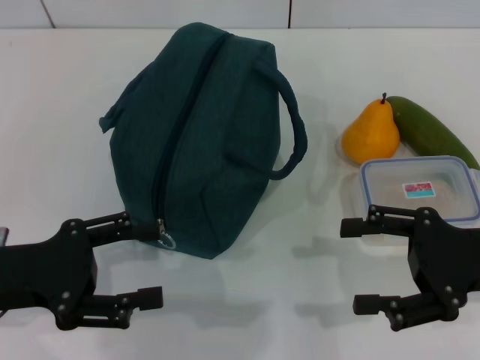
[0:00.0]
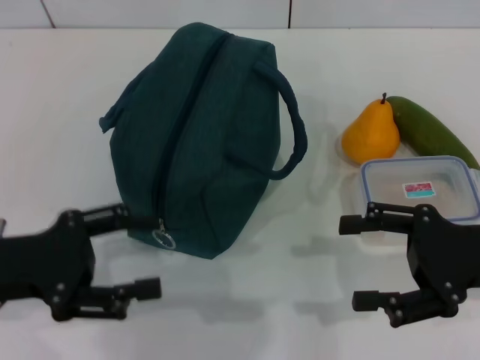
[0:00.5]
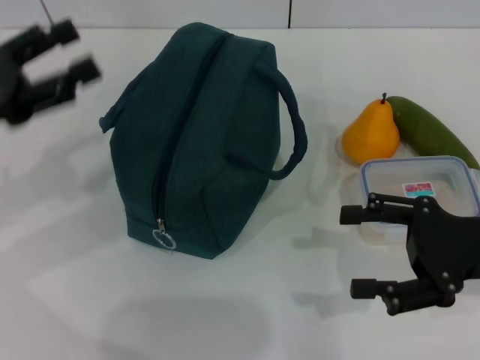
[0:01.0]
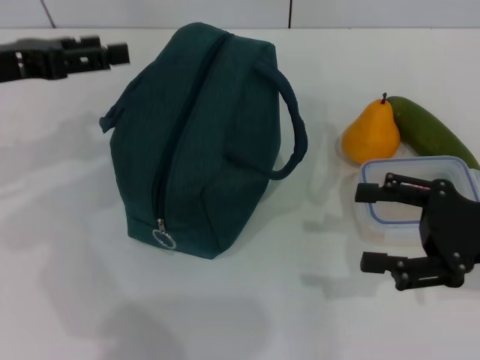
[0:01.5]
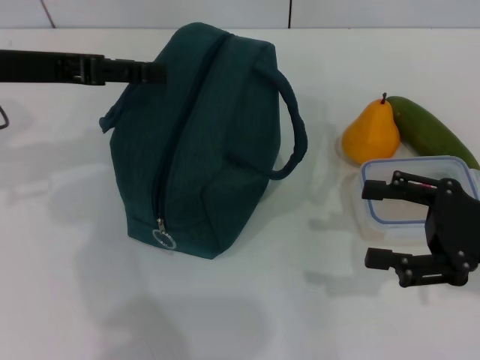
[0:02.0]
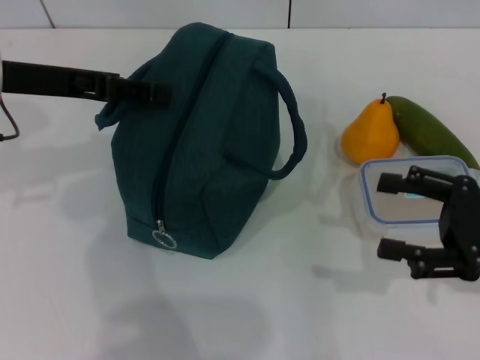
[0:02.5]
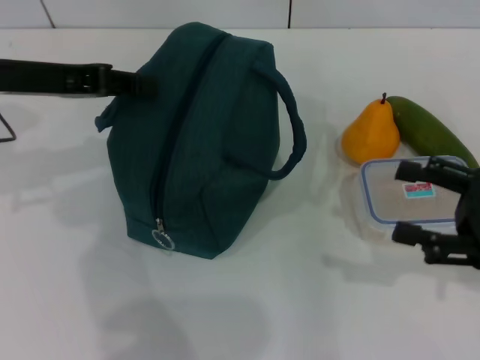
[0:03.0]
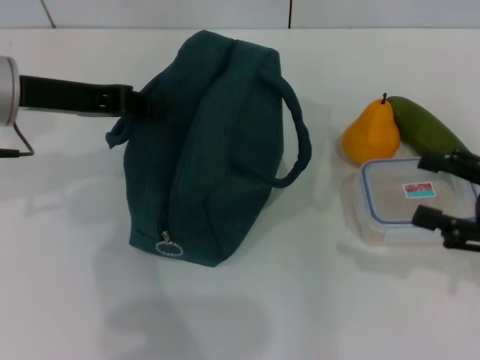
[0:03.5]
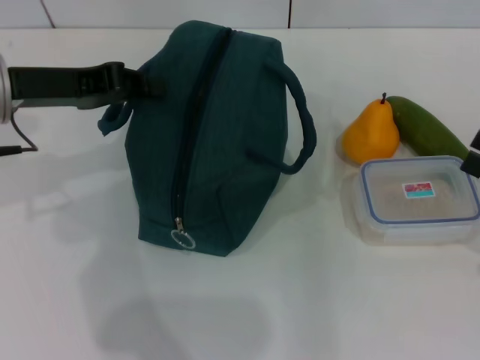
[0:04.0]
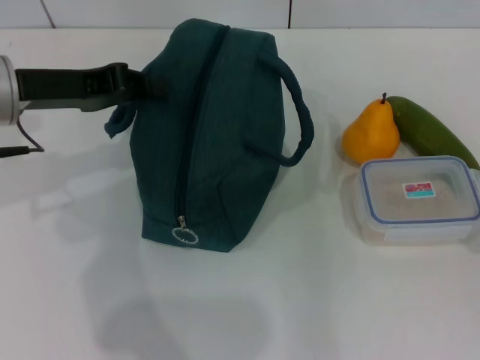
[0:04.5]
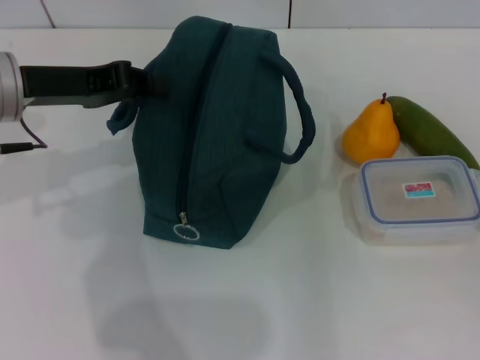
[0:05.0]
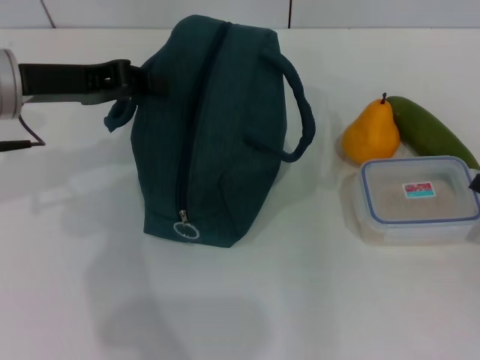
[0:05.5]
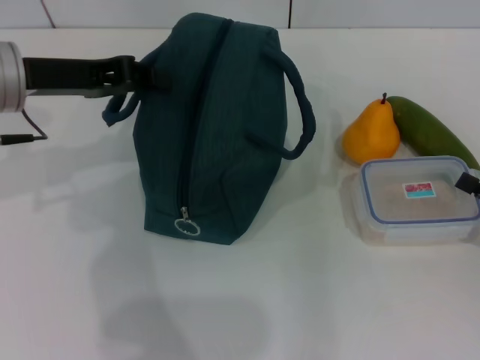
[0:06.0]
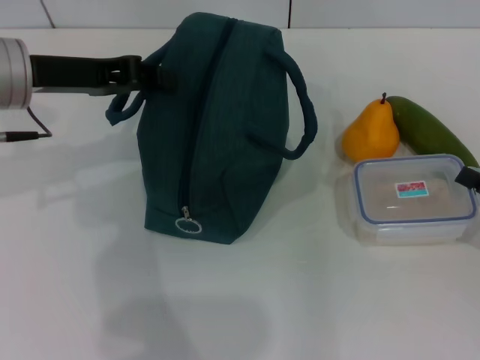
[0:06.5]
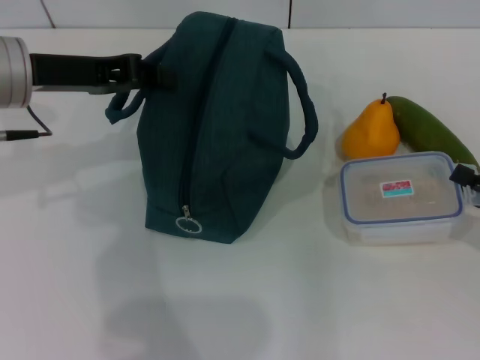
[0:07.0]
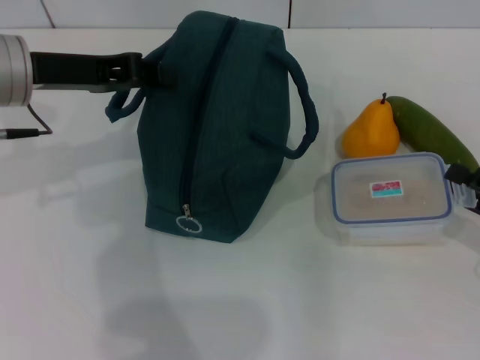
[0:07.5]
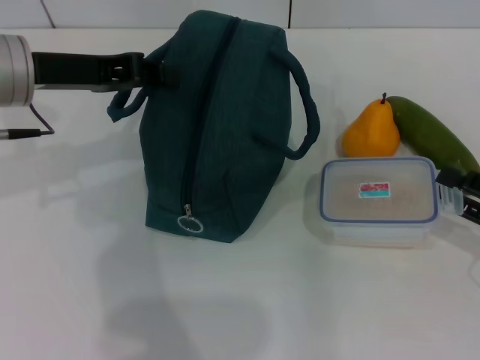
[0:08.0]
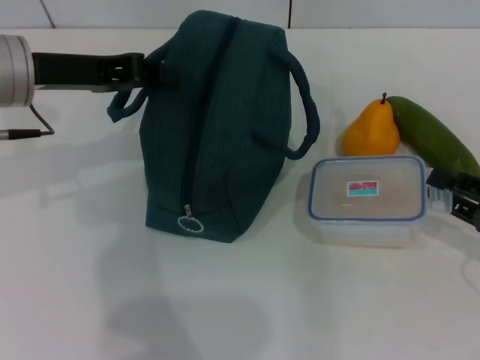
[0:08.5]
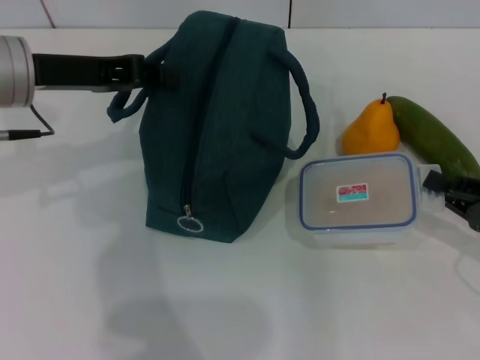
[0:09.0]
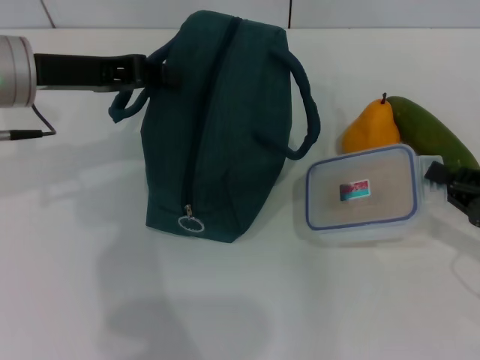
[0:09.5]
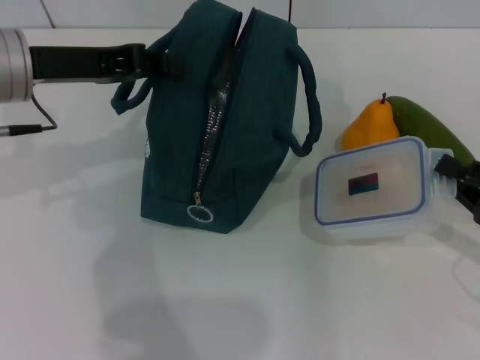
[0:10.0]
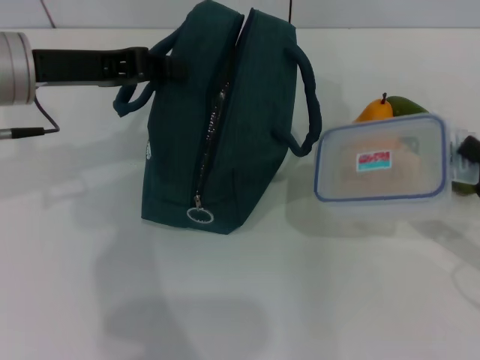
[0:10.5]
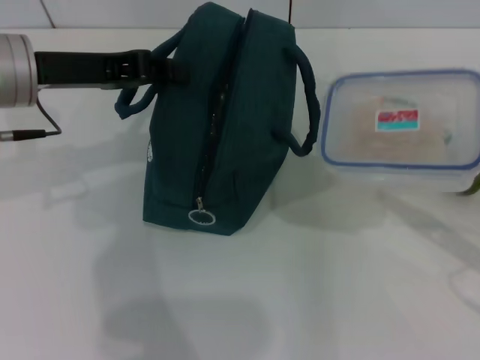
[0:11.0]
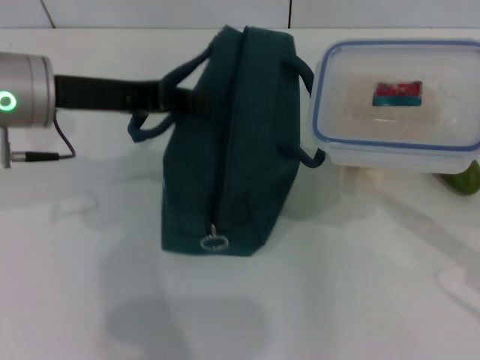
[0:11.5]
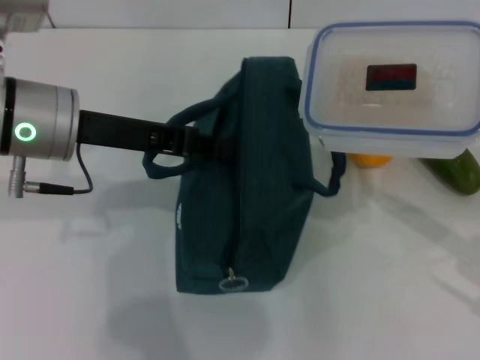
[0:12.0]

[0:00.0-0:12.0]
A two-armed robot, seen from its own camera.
Step, 0:00.0 to 0:03.5: Hold the lunch bag with your left hand.
Step, 0:04.0 to 0:09.5: Pick up the lunch box with your right hand.
0:00.0 to 0:02.0: The left gripper heads forward and upward, covering some 15 cm.
0:02.0 to 0:04.0: The left gripper closes up, while the right gripper travels to the right by roughly 5 cm.
0:04.0 to 0:06.0: The right gripper moves downward, about 5 cm.
0:06.0 to 0:08.0: The grippers move only a little.
0:08.0 to 0:10.0: The right gripper closes up.
0:10.0 to 0:12.0: The right gripper moves approximately 5 cm.

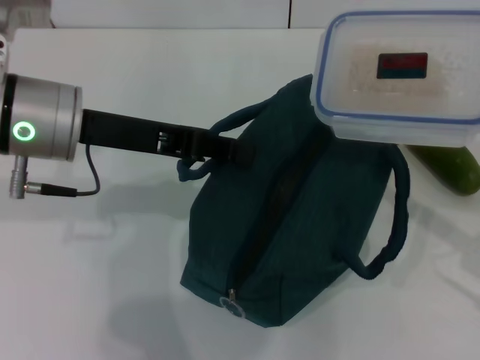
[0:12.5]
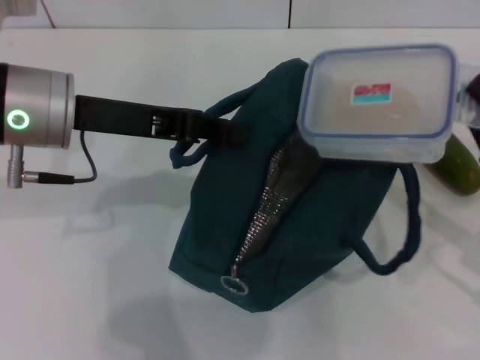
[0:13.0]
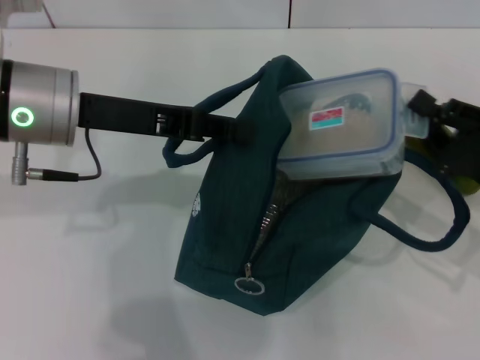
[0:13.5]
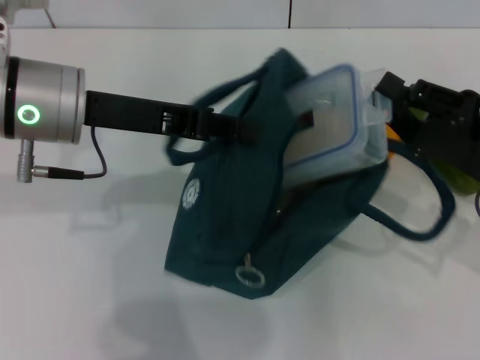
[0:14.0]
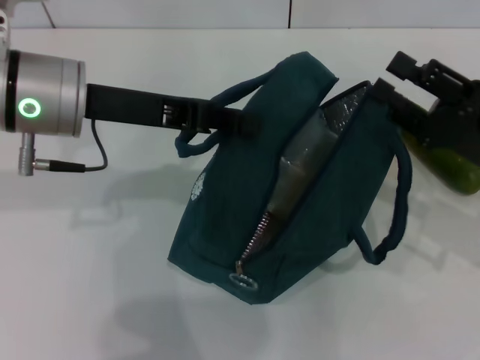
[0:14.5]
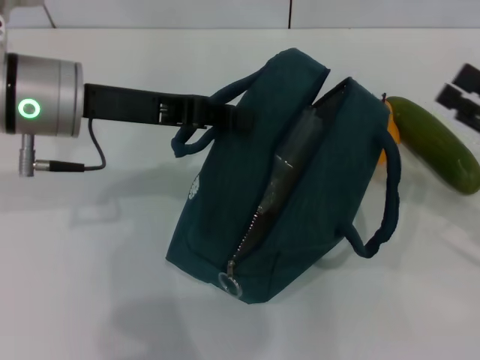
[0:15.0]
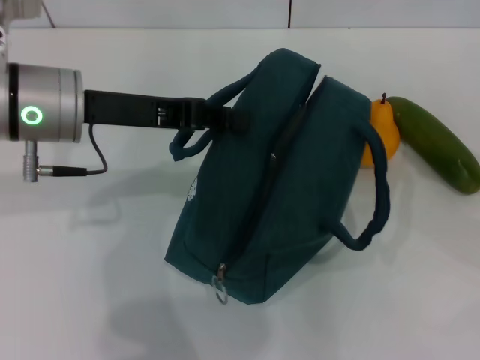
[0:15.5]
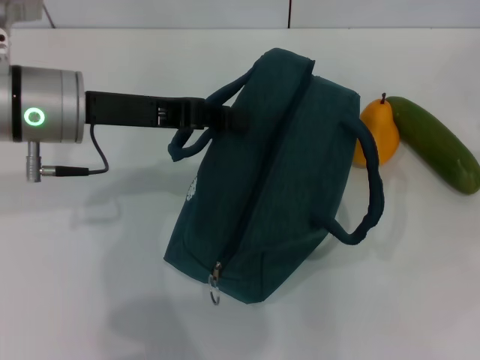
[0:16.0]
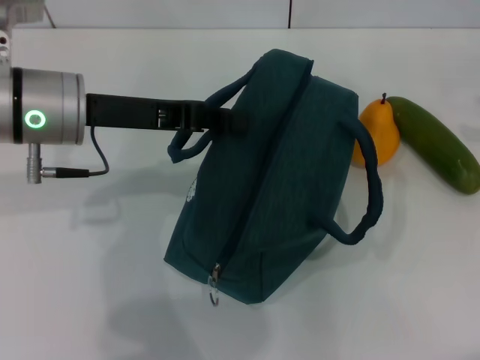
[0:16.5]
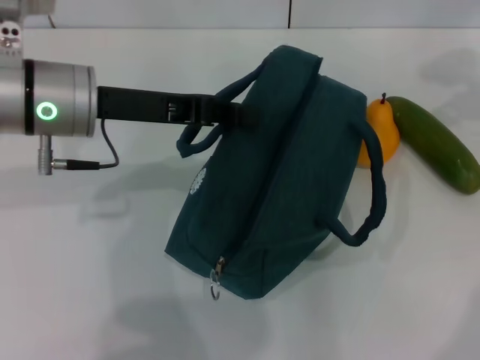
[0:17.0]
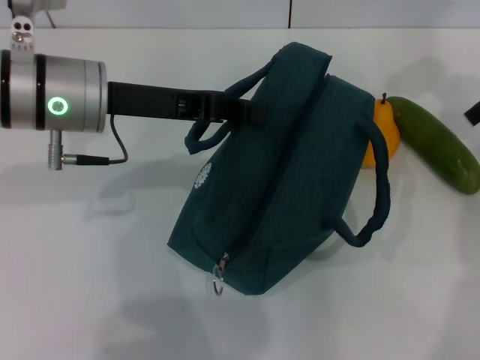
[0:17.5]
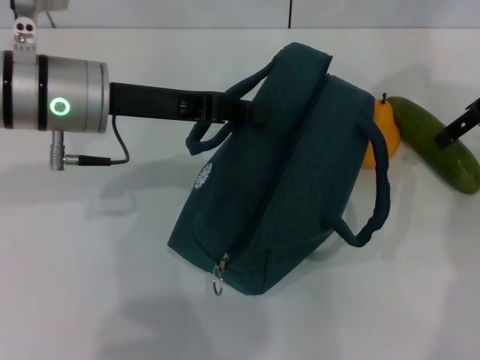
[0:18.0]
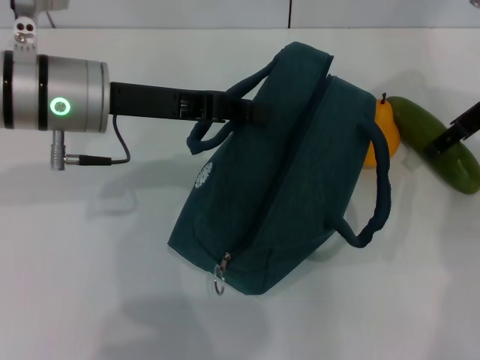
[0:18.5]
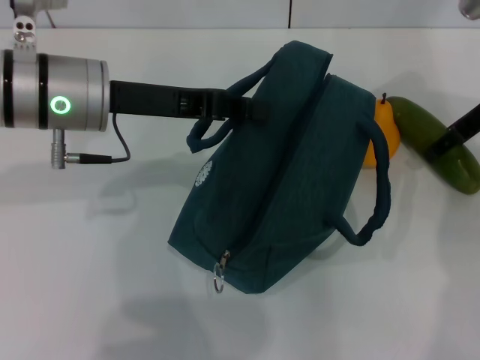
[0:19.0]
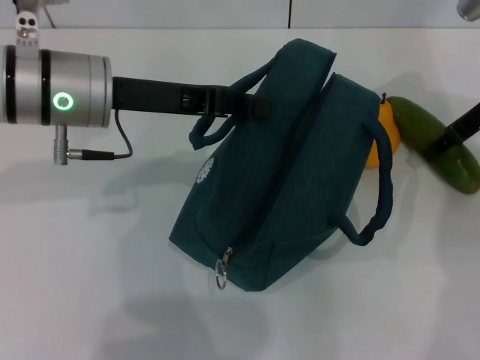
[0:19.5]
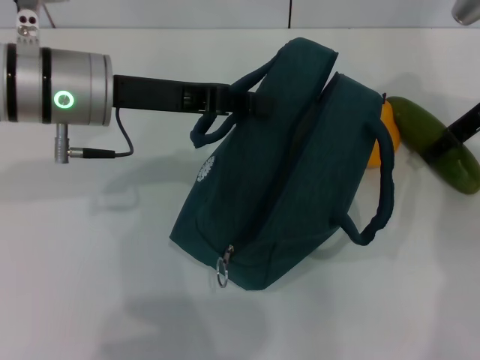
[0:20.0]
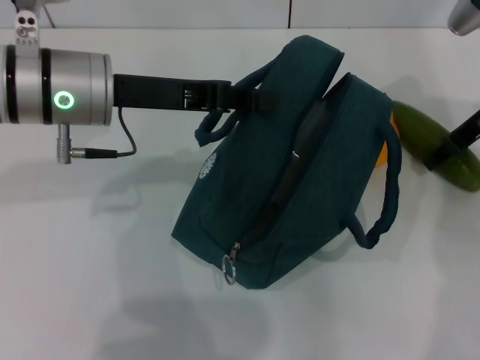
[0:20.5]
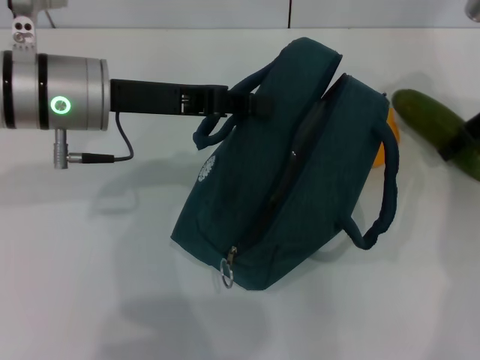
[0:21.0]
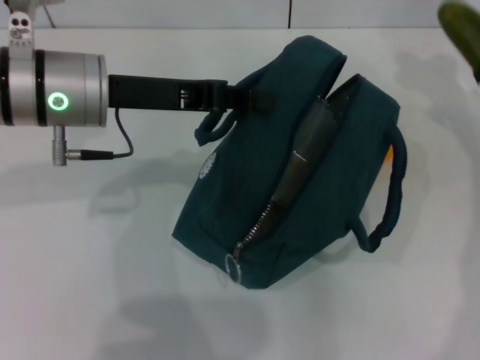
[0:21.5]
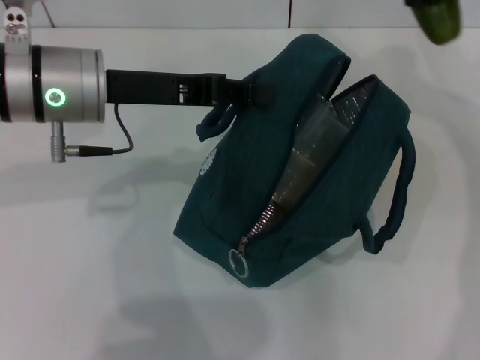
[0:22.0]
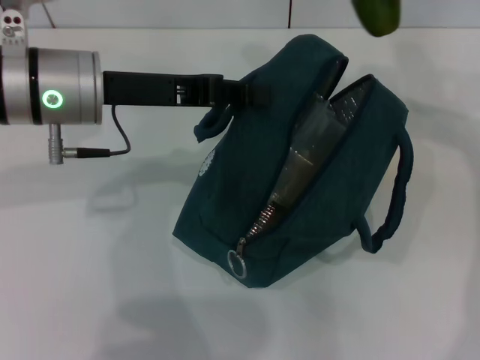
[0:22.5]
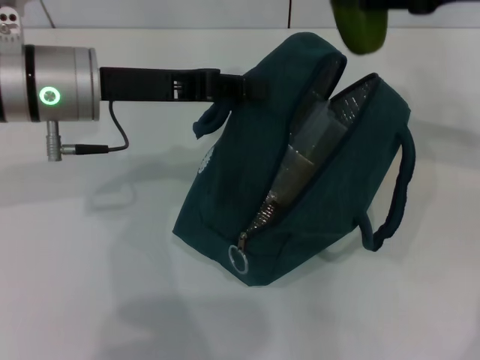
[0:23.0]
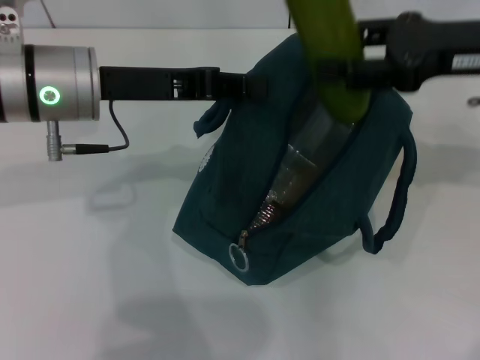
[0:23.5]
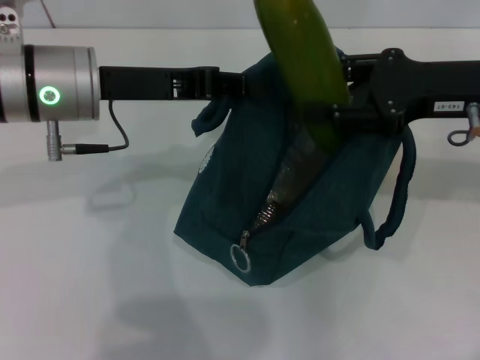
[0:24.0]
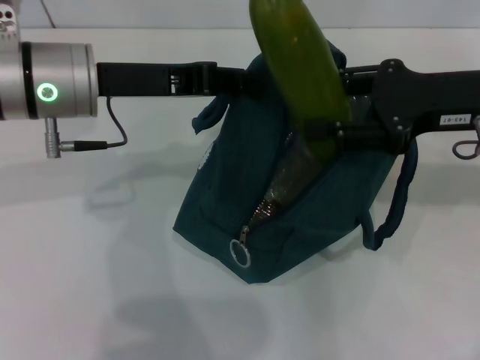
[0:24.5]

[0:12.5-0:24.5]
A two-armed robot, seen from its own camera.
Step, 0:12.5 to 0:15.0: Place the lunch box into the lunch bag with your right hand.
Step, 0:15.5 to 0:20.5: Pick up the cucumber with your right hand.
0:12.5 to 0:14.5: The right gripper is displaced forward by roughly 5 cm, and opens its fingers.
0:14.5 to 0:16.5: The right gripper moves upward, to the right and forward, roughly 25 cm, and opens up.
0:16.5 to 0:18.5: The right gripper moves to the left and downward, some 15 cm.
0:18.5 to 0:20.5: The grippers move only a little.
0:20.5 to 0:22.5: The right gripper goes some 10 cm upward.
0:22.5 to 0:24.5: The right gripper is displaced downward and backward by some 10 cm.

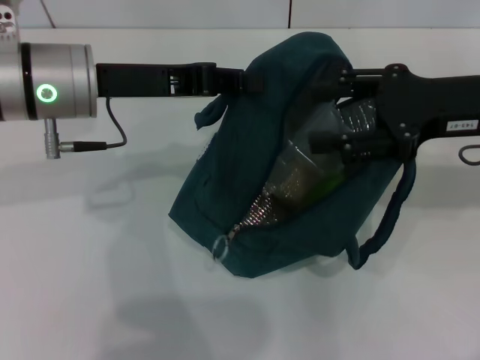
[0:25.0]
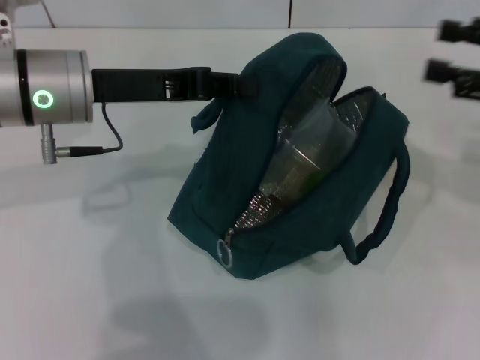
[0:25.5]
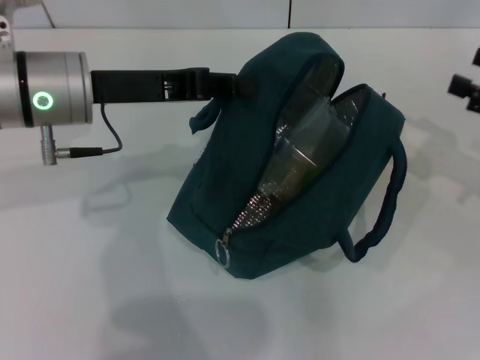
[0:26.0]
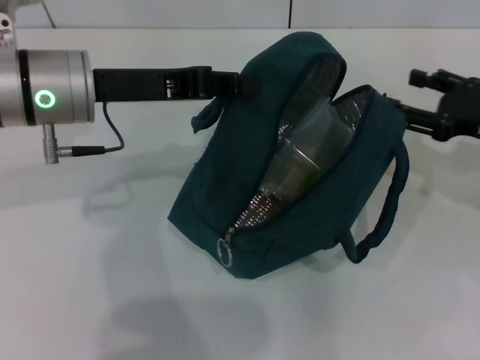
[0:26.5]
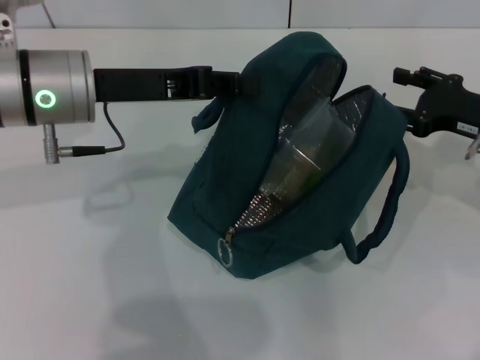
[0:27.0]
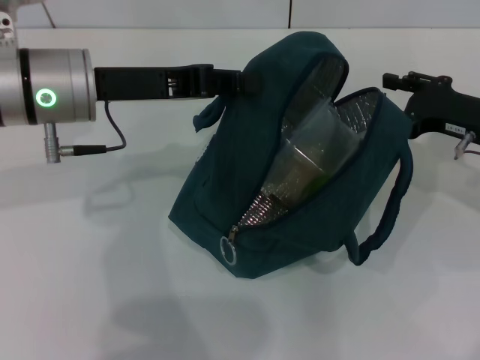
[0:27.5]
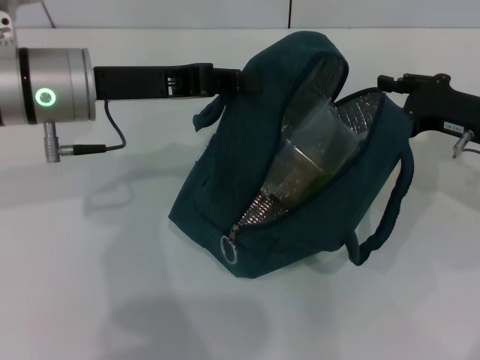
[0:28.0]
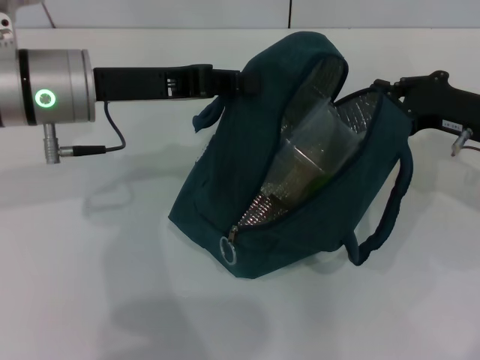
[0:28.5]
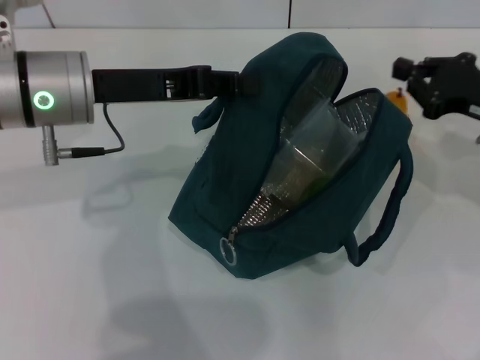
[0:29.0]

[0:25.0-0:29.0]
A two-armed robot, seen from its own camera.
0:25.0 to 0:27.0: The right gripper is displaced downward and to the right by approximately 10 cm.
0:27.0 to 0:29.0: The right gripper closes.
